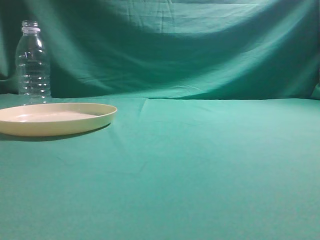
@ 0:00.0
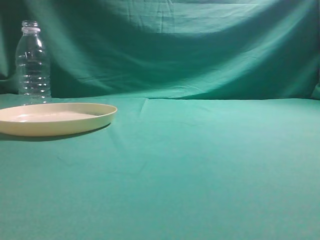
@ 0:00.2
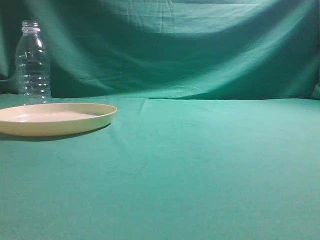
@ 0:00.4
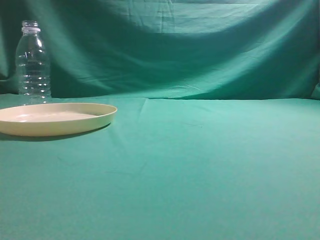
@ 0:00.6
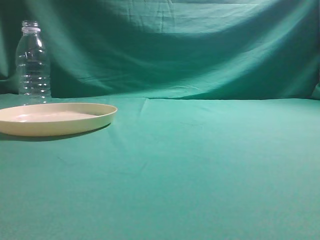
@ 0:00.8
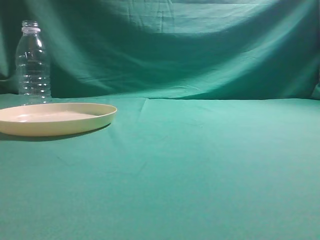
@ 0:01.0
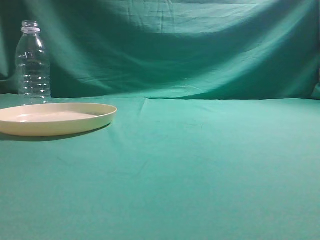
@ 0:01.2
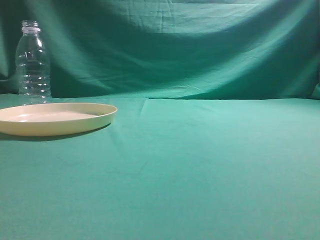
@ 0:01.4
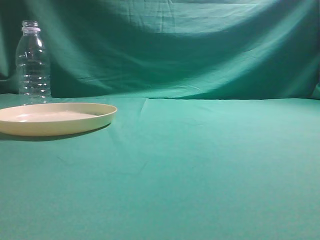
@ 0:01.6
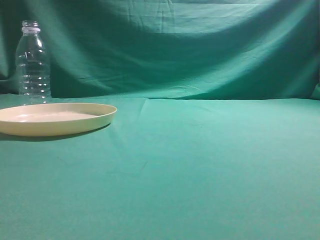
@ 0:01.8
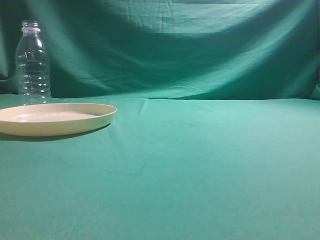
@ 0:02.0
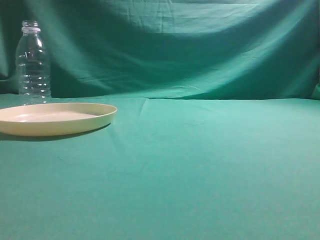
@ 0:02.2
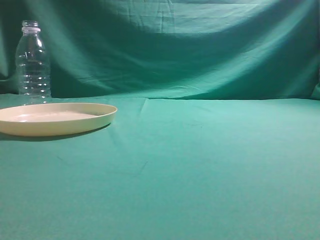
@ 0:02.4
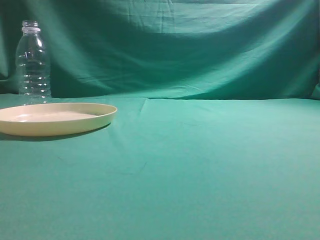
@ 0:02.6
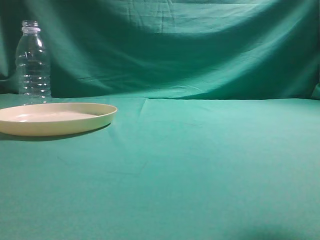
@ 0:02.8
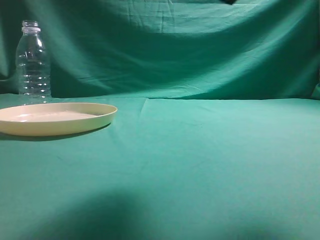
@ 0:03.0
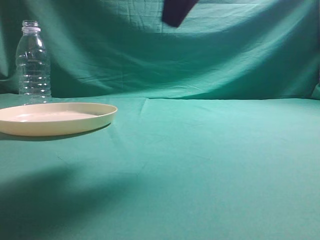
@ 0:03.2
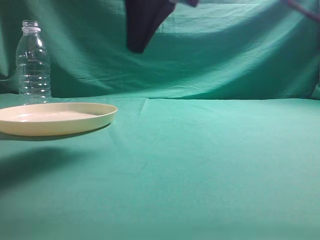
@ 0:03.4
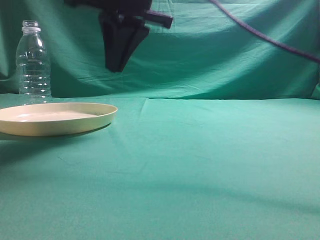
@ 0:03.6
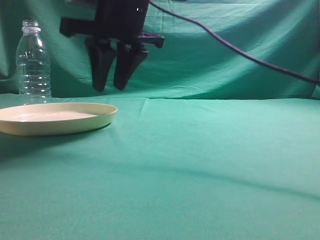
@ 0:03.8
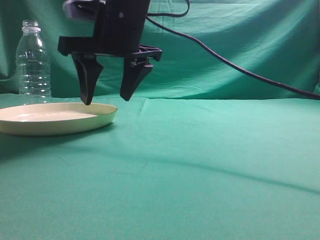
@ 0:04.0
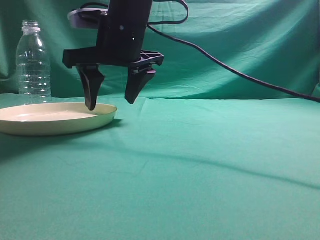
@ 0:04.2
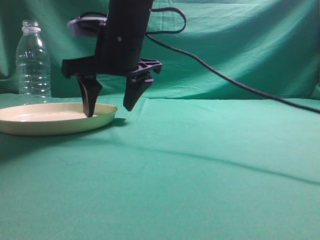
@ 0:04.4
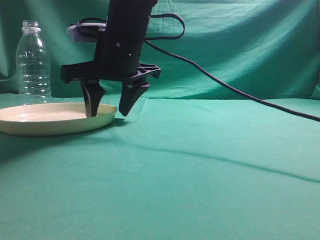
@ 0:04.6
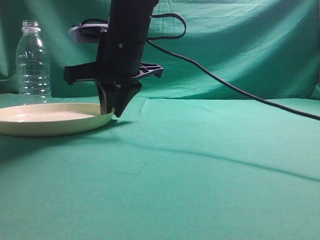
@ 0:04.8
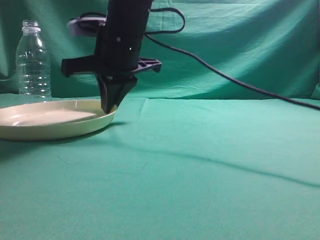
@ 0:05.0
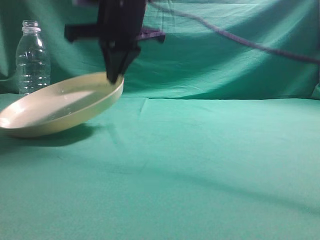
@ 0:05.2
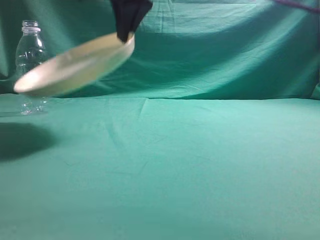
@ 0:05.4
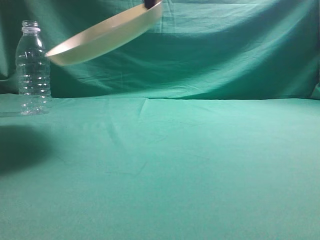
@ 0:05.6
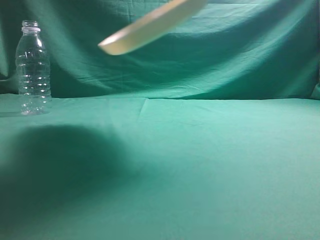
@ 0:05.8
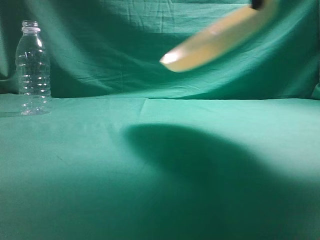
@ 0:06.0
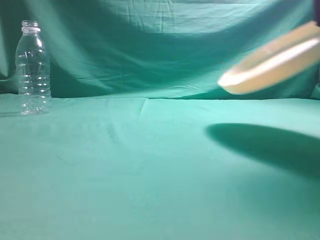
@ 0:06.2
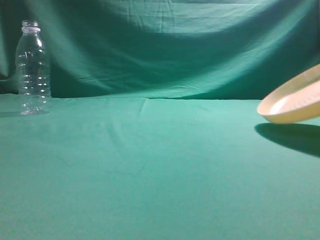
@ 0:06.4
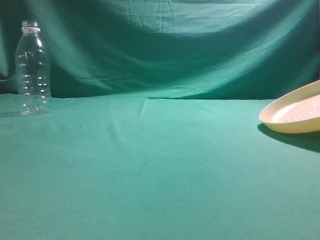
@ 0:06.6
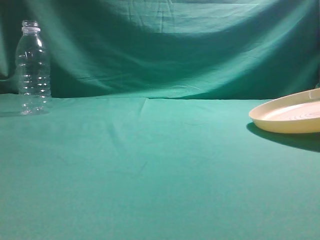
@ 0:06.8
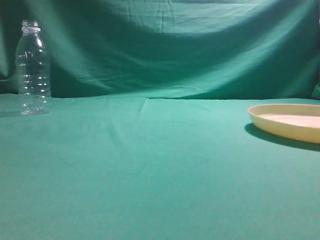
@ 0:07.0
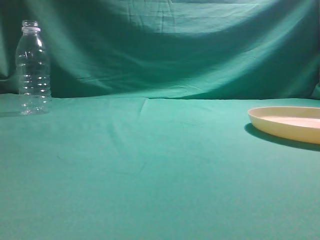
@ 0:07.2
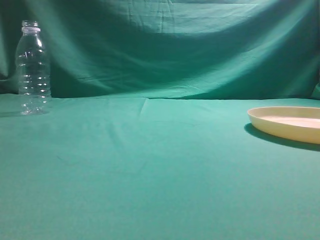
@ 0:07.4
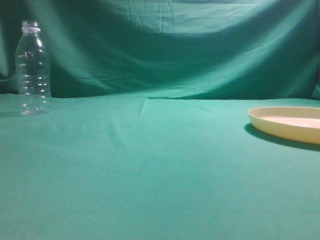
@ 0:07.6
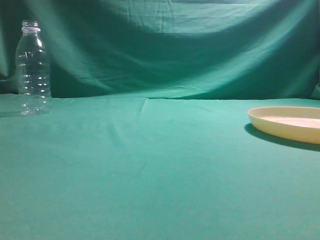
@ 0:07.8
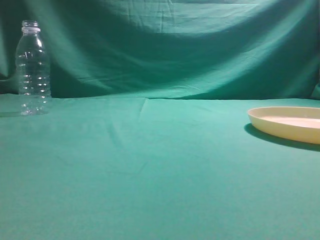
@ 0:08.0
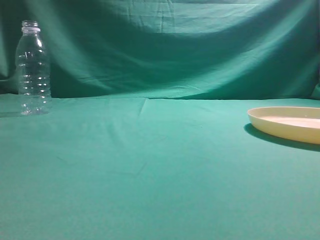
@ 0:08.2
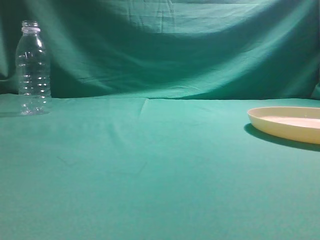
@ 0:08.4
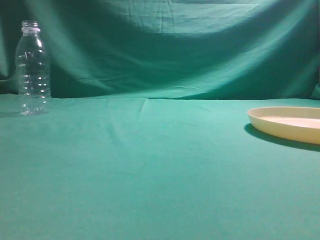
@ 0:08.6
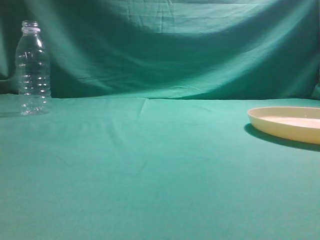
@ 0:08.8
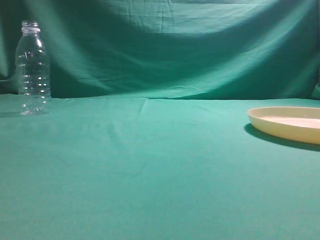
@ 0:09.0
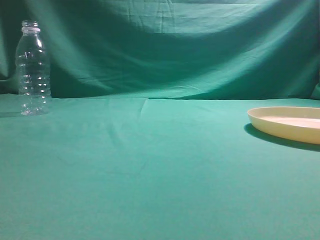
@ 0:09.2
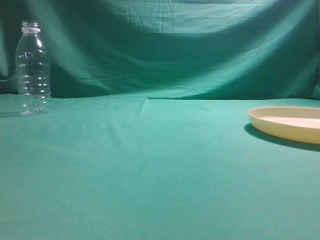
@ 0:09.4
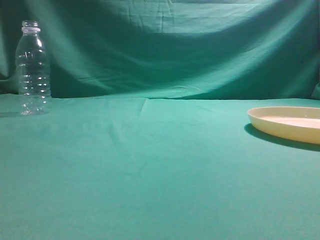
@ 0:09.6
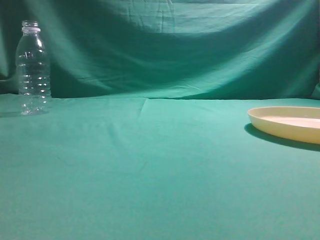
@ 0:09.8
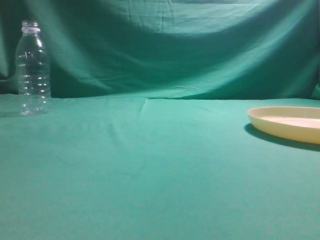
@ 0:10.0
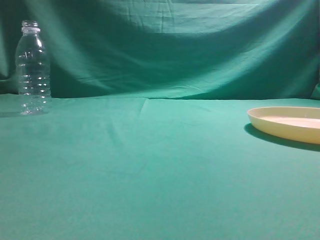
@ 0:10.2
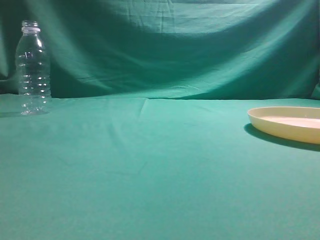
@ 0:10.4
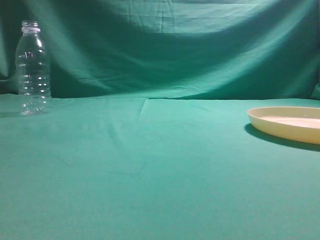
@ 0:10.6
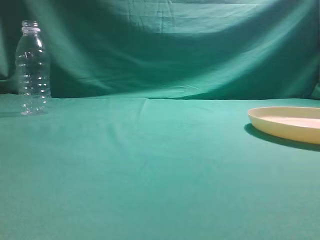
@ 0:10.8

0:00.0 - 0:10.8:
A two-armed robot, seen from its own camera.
Step, 0:00.0 - 0:05.2: Pick the container that can hold fruits.
Step, 0:05.4 - 0:07.8: Move the picked object to the right side of the table.
0:01.6 - 0:03.0: The right gripper shifts roughly 25 cm forward and to the left.
0:03.0 - 0:04.6: The right gripper moves to the left, downward and forward, roughly 25 cm, and opens.
0:04.6 - 0:06.2: The right gripper heads to the right and upward, covering approximately 30 cm, and closes up.
0:06.2 - 0:07.8: The right gripper moves backward and to the right, approximately 10 cm, travels downward and back again, about 10 cm each way, and opens, then closes again.
